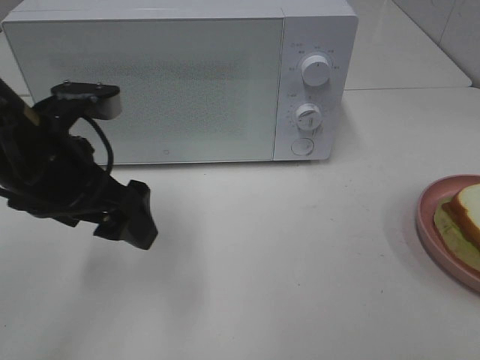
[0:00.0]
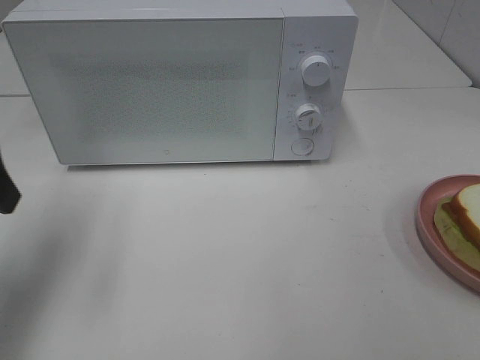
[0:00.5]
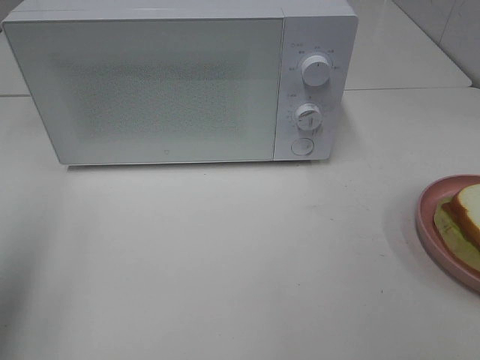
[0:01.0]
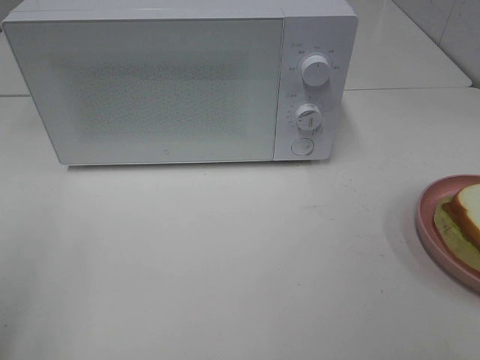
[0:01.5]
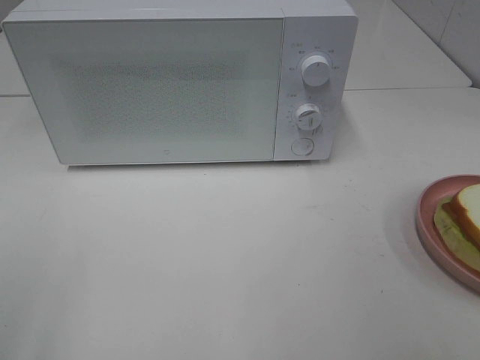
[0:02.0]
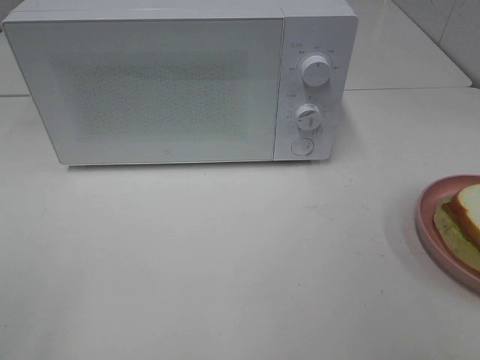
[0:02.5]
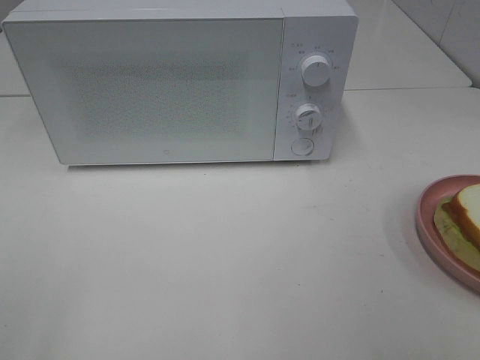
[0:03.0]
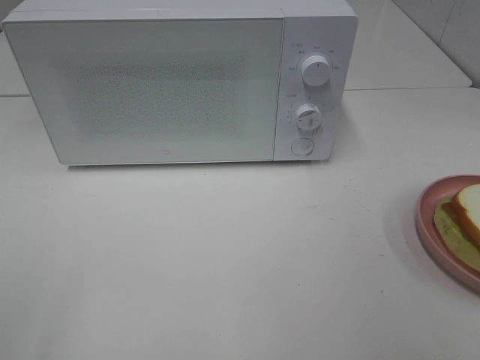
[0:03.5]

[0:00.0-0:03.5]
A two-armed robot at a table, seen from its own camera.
Task of the whole recording: Heat Sandwich.
0:00.0 to 0:02.0: The left gripper heads backward, to the left and upward, covering some 30 cm.

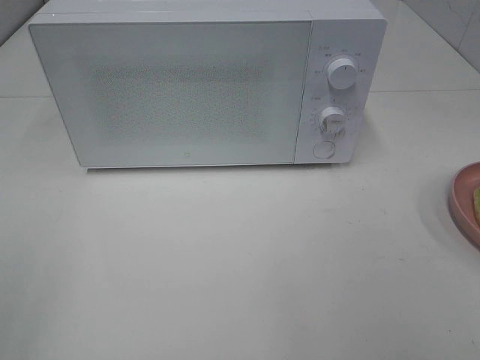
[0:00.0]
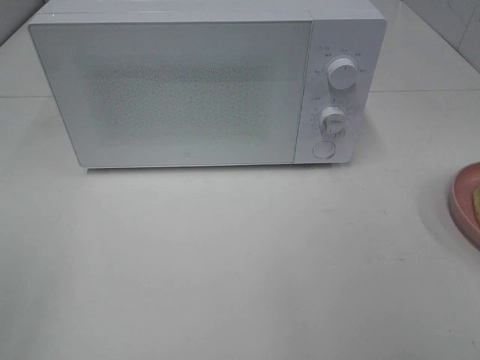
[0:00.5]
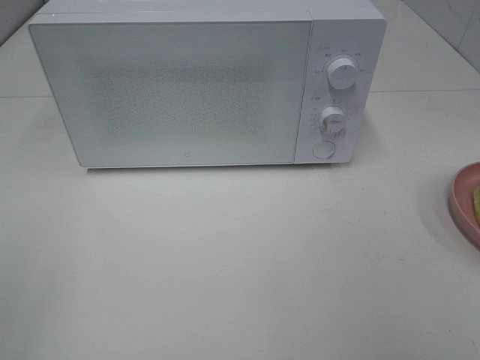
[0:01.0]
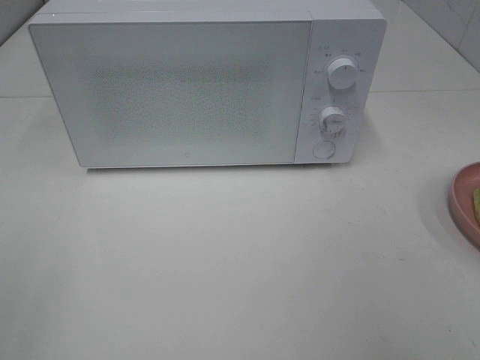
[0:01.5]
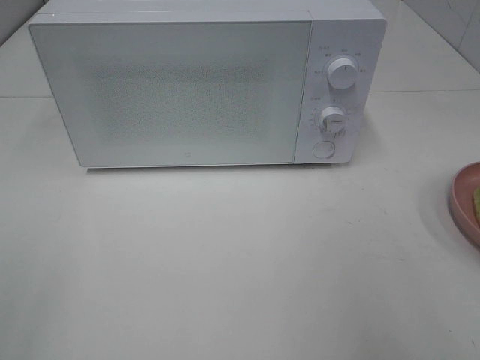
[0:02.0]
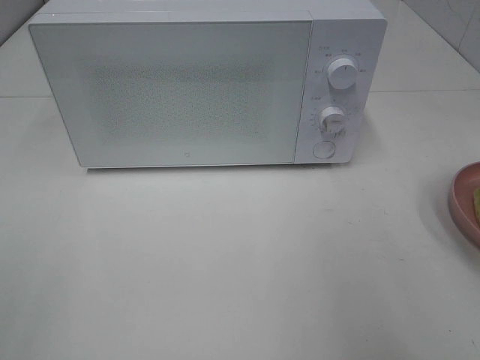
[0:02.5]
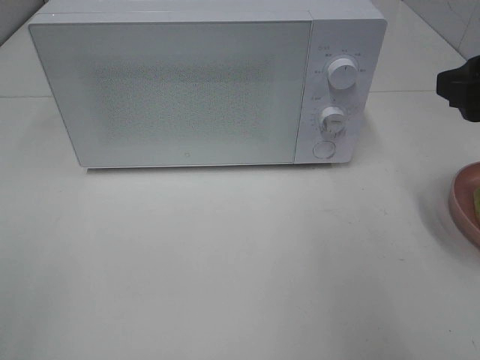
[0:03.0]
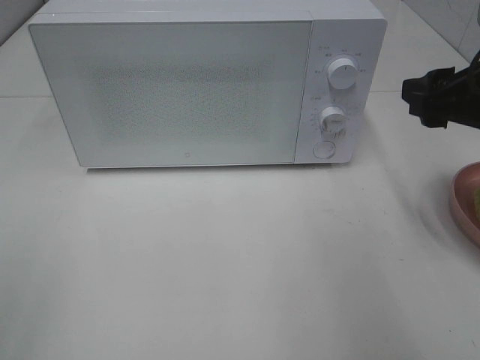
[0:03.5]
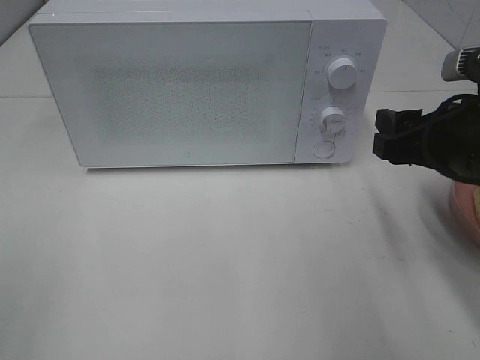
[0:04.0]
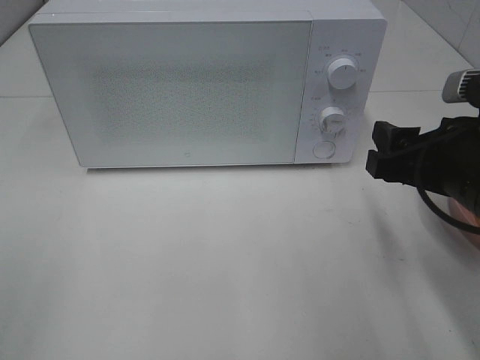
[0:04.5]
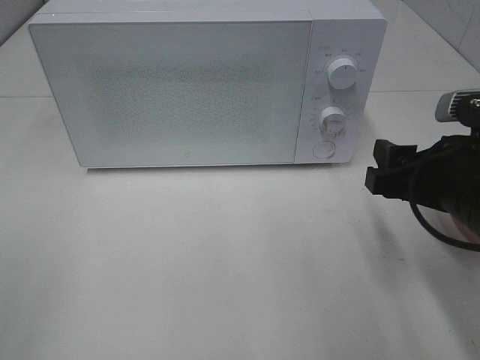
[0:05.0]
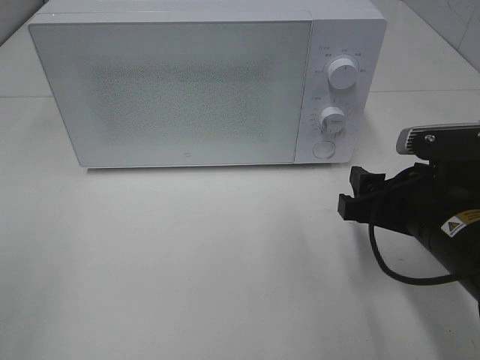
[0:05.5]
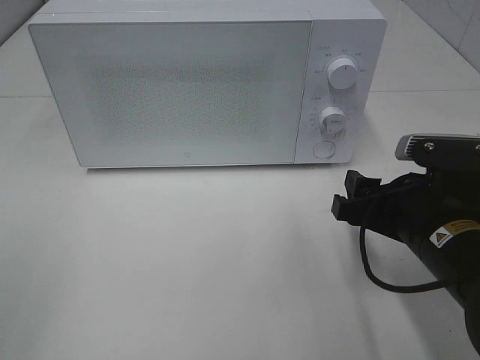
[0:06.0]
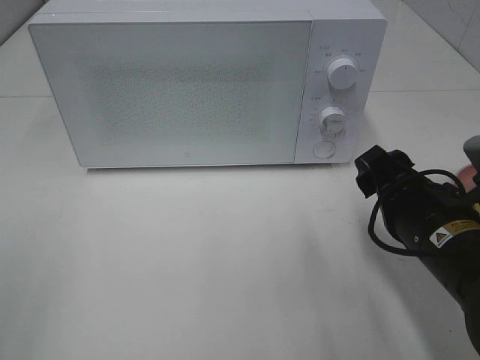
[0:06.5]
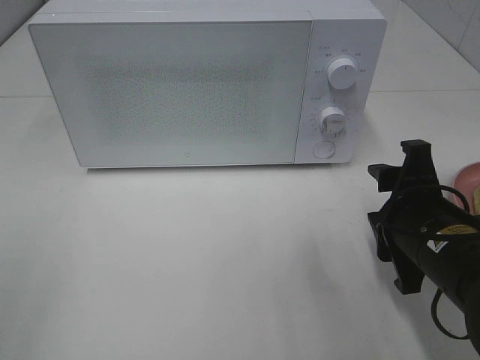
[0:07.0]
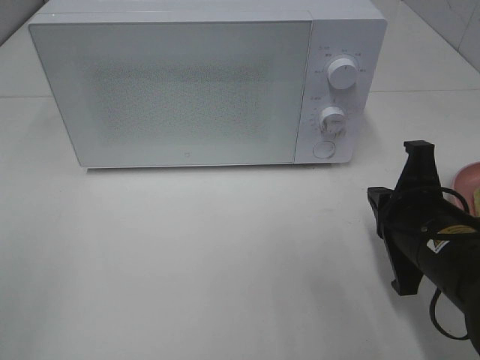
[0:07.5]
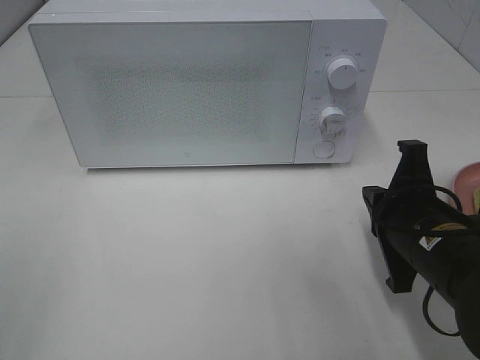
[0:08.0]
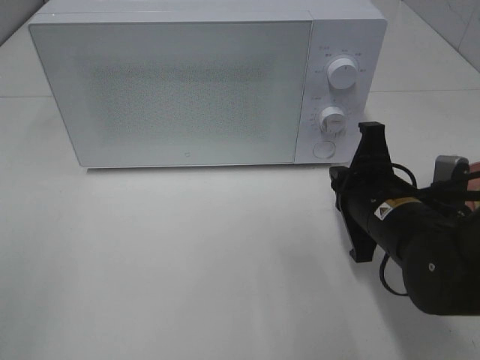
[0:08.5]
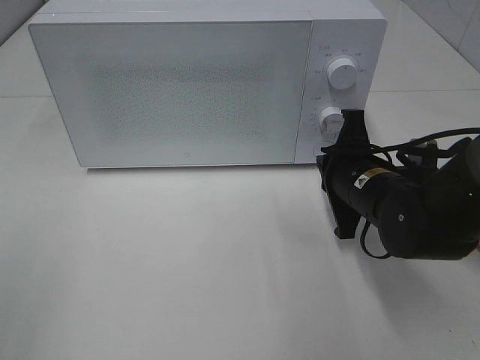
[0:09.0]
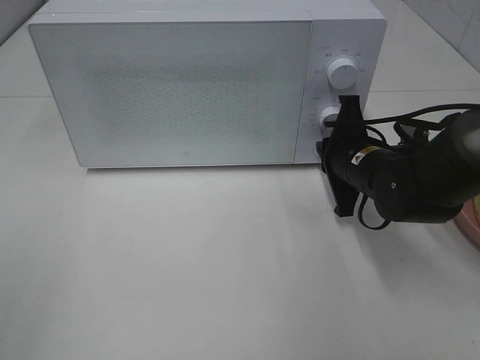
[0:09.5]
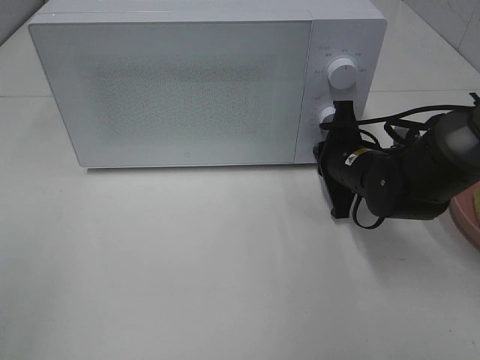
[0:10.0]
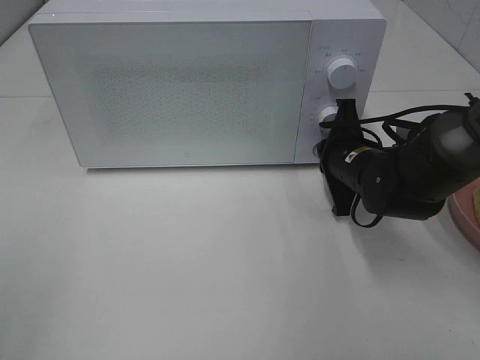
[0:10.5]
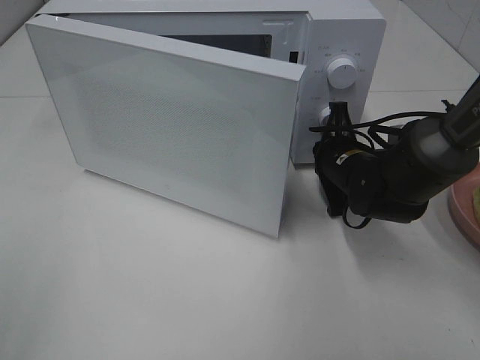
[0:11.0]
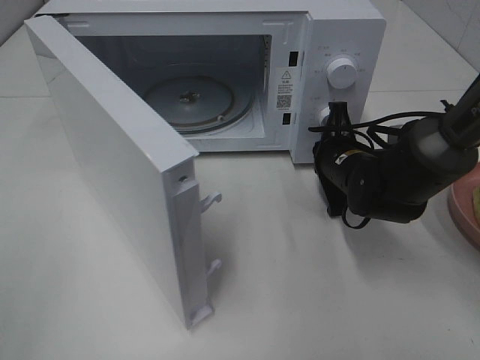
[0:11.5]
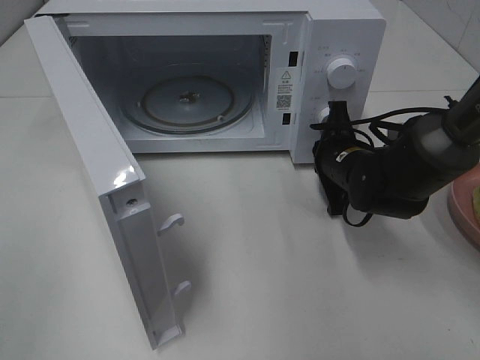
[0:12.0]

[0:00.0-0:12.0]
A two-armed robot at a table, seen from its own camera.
Task of the whole recording: Heat Sandwich.
0:02.0 to 0:04.0: The right gripper shifts approximately 15 cm forward, downward and to the left.
0:04.0 to 0:06.0: The right gripper goes roughly 5 cm downward.
0:06.0 to 0:08.0: The right gripper closes its fingers.
0:08.0 to 0:10.0: The right gripper shifts about 15 cm forward.

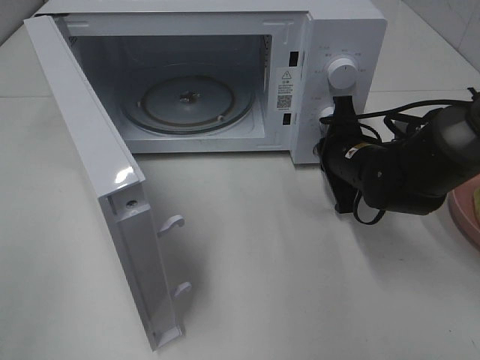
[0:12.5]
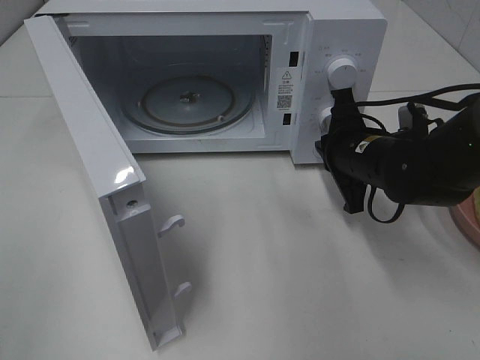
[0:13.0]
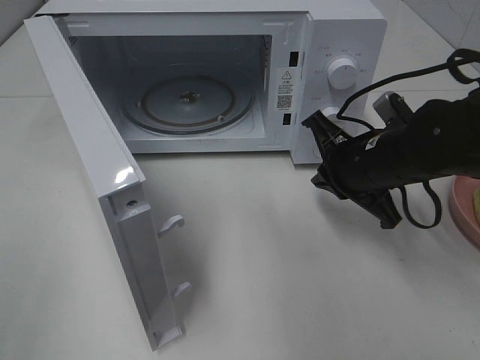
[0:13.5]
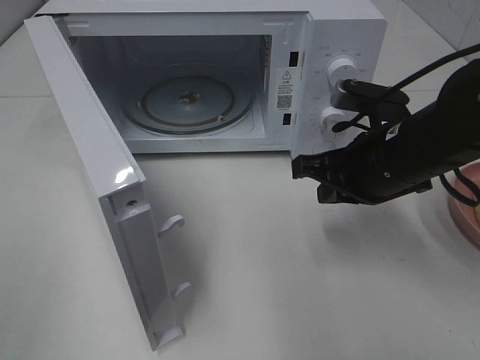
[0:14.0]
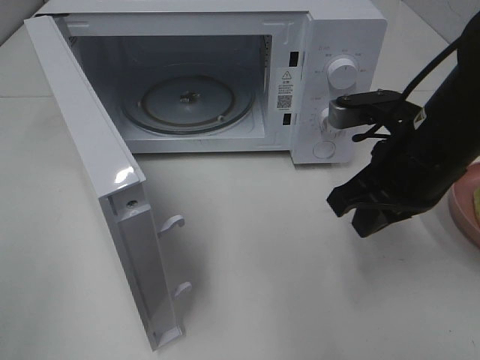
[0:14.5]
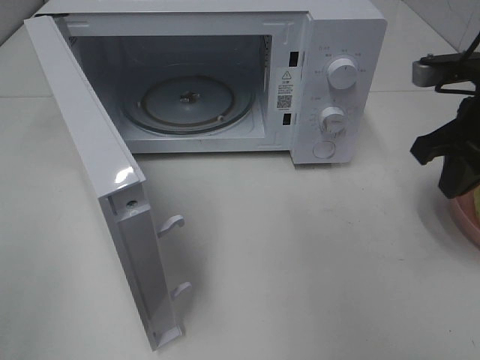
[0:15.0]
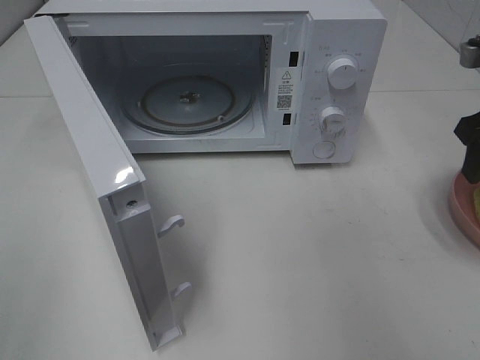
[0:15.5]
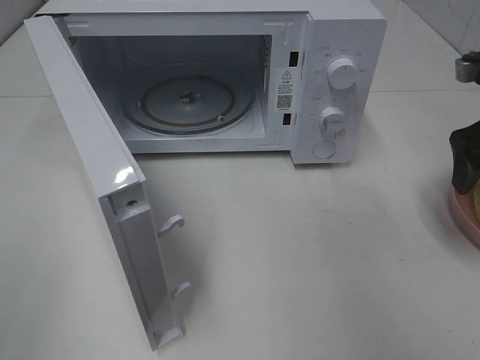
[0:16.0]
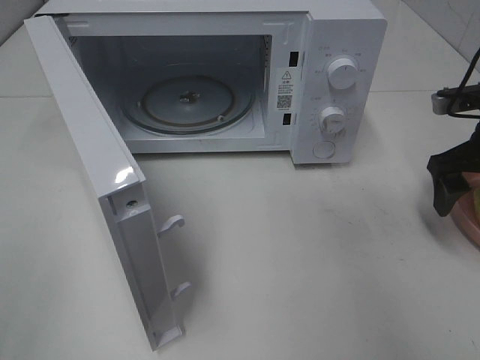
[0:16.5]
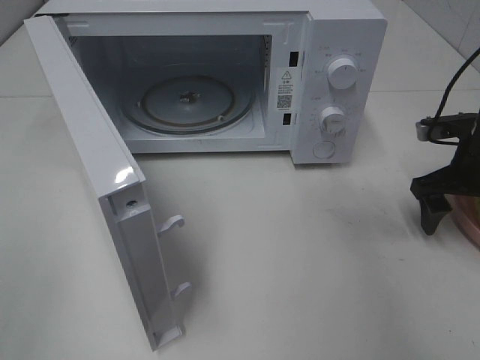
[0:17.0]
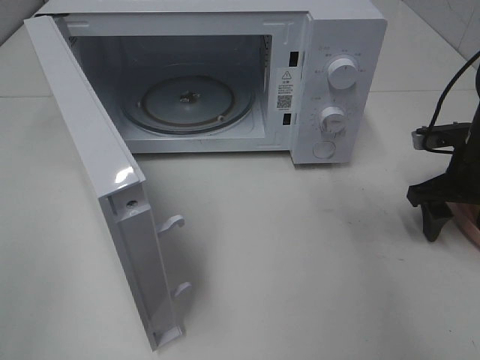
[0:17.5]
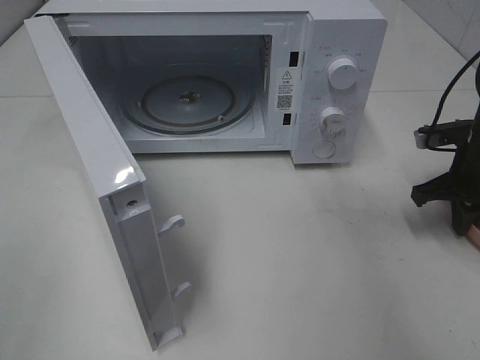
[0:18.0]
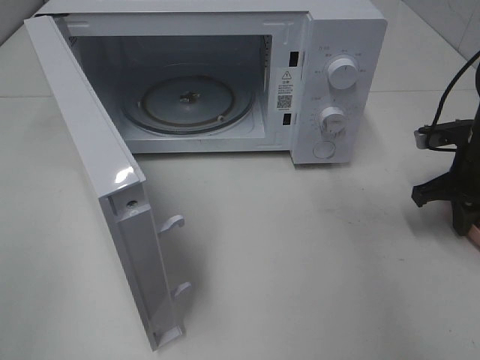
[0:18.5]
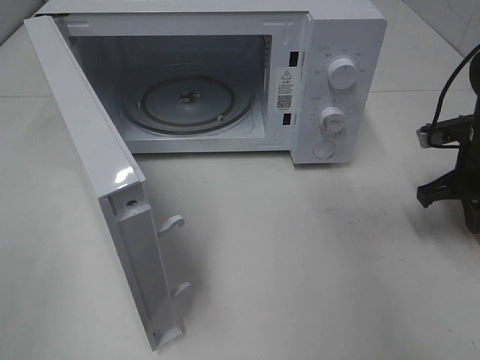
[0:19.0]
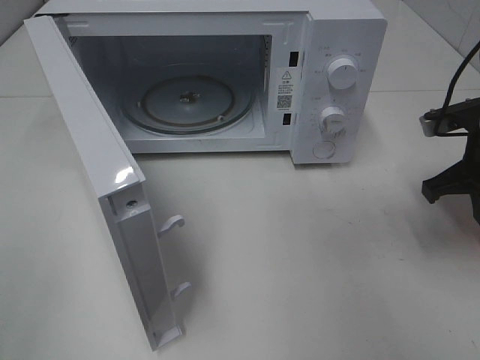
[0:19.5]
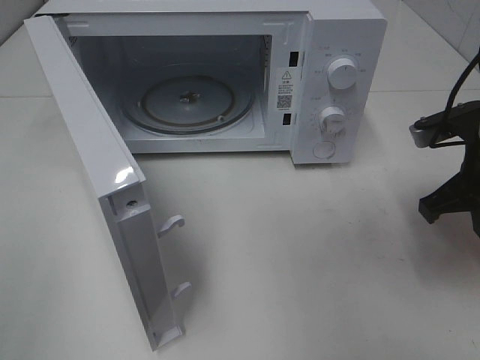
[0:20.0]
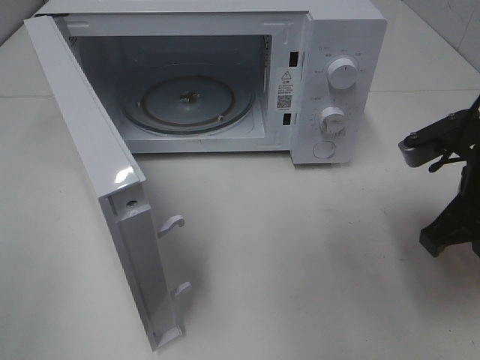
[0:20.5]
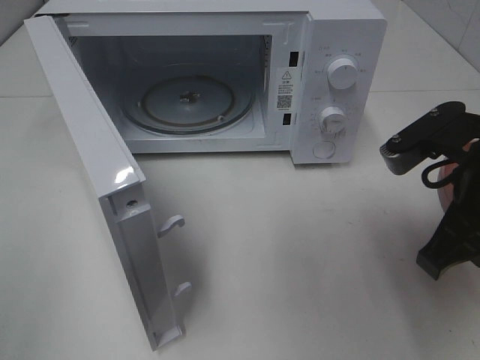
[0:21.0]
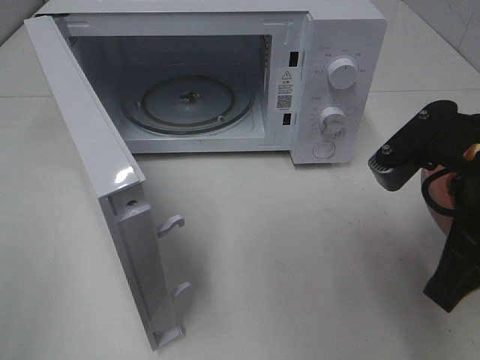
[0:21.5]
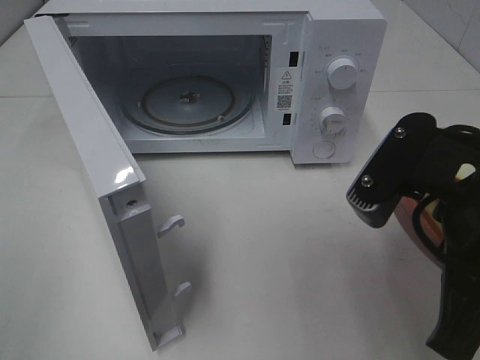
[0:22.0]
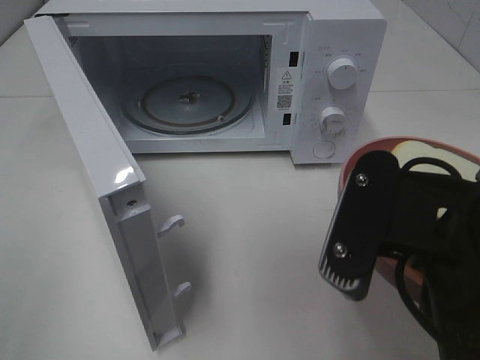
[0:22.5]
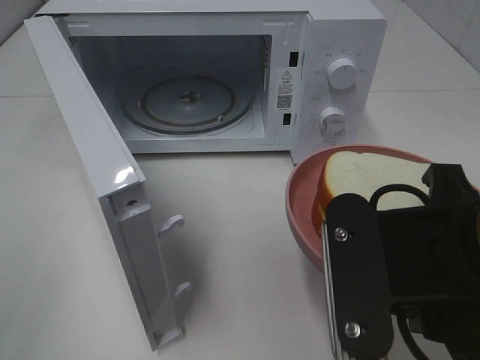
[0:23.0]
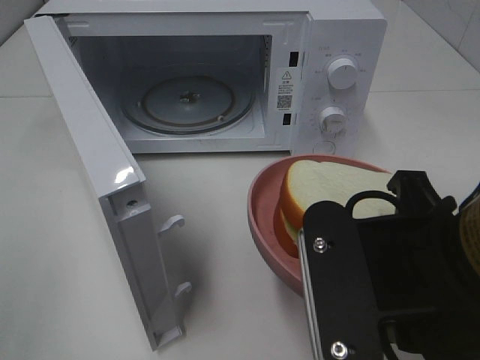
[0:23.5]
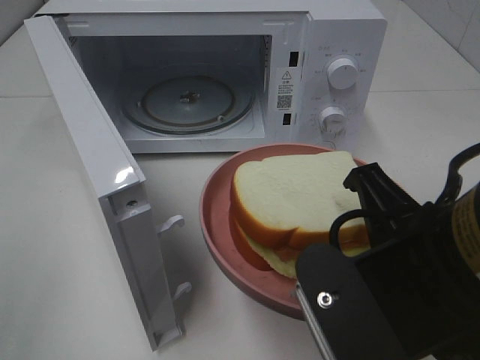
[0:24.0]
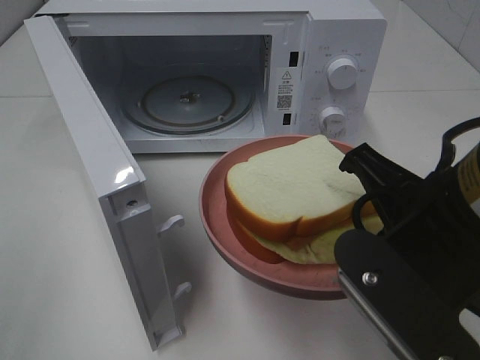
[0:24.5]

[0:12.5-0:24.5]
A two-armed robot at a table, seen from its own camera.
Task of the whole recording: Heat Sandwich.
Step, 0:13.0 to 0:17.5: Right hand: grab the plate with the sandwich.
0:12.5 to 0:14.5: The right gripper is displaced upward and backward by about 15 cm.
0:14.5 to 0:16.5: The right gripper travels to the right and forward by some 15 cm, and opens up.
0:16.5 to 0:18.5: The right gripper travels downward by about 5 cm, and closes.
0:18.5 to 0:20.5: The right gripper shifts approximately 15 cm backward, to the left and upward.
0:20.5 to 0:22.5: The right gripper moves backward, to the left and upward, about 15 cm.
